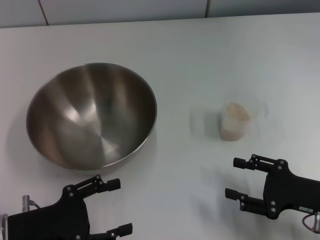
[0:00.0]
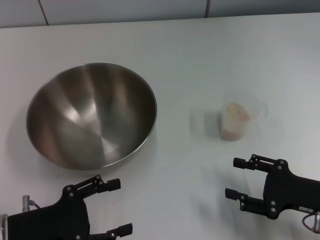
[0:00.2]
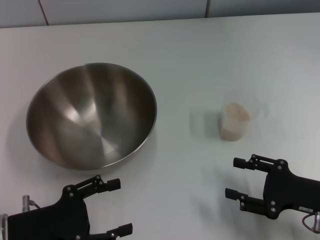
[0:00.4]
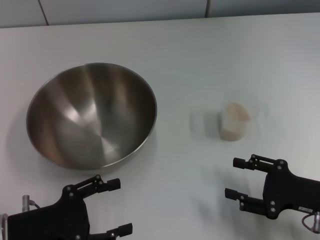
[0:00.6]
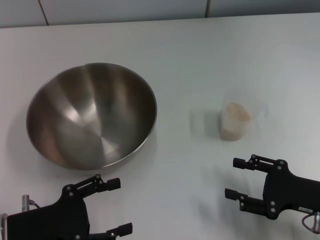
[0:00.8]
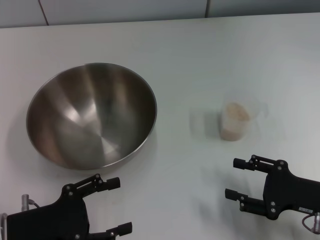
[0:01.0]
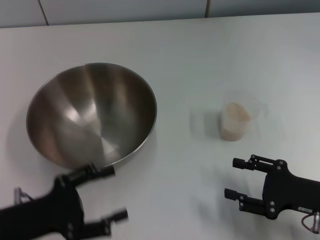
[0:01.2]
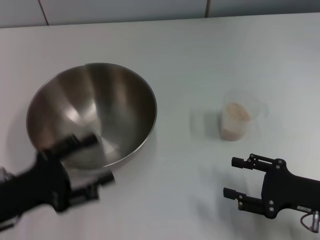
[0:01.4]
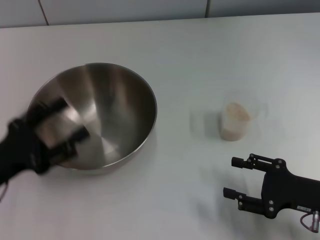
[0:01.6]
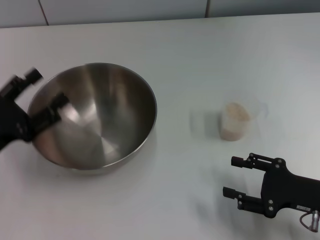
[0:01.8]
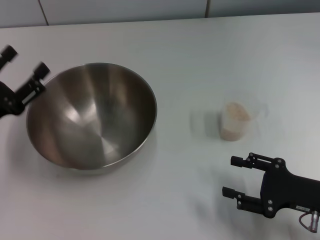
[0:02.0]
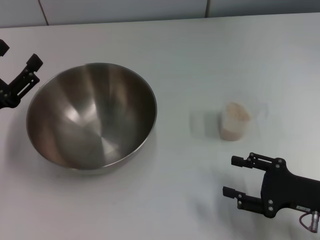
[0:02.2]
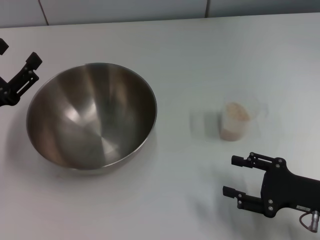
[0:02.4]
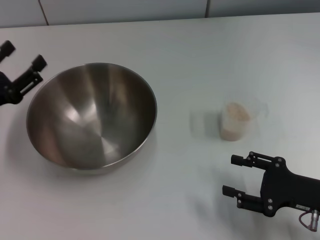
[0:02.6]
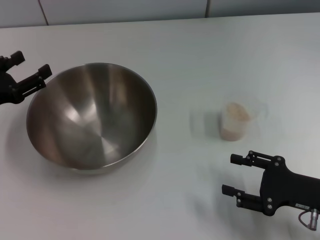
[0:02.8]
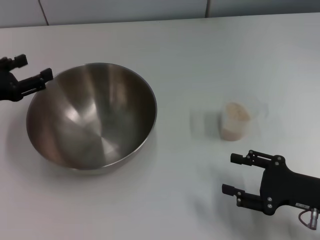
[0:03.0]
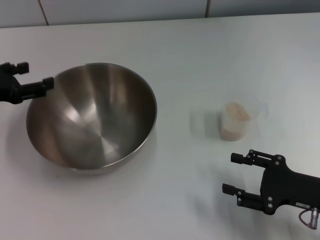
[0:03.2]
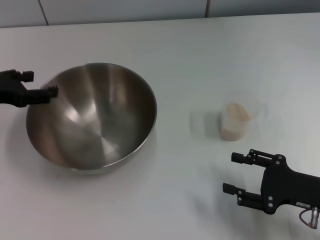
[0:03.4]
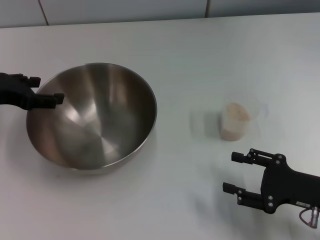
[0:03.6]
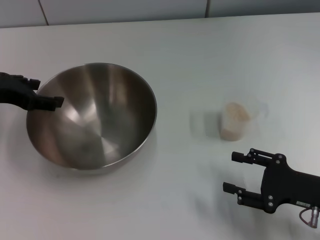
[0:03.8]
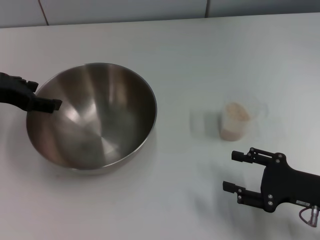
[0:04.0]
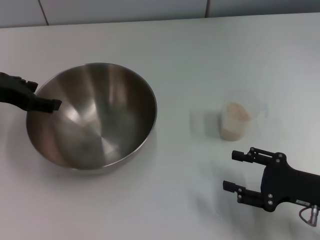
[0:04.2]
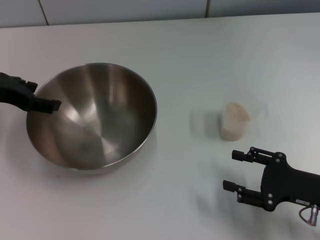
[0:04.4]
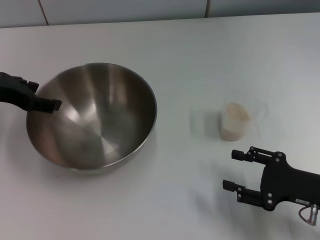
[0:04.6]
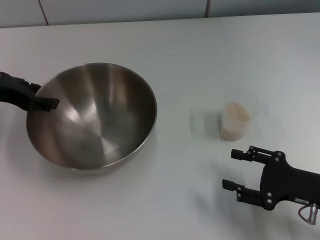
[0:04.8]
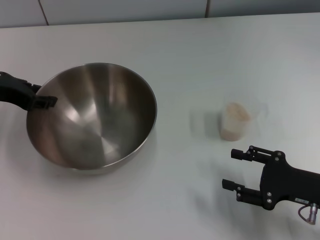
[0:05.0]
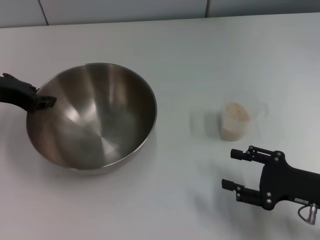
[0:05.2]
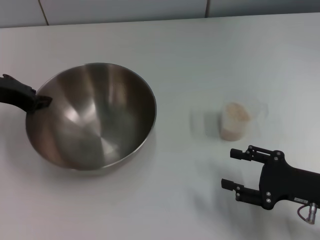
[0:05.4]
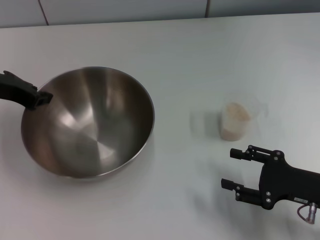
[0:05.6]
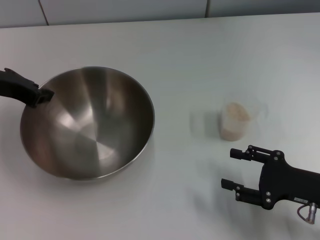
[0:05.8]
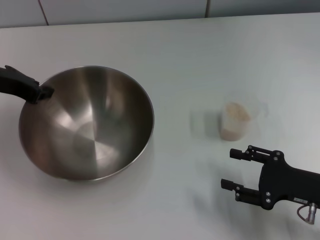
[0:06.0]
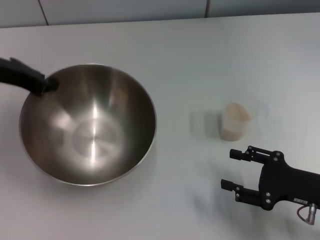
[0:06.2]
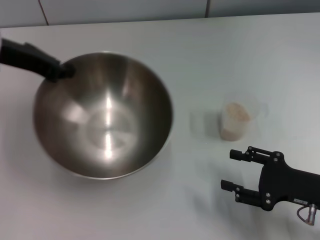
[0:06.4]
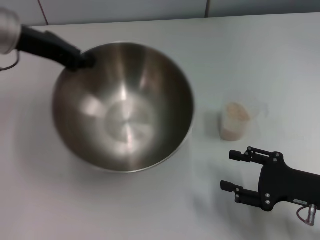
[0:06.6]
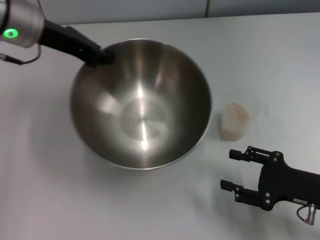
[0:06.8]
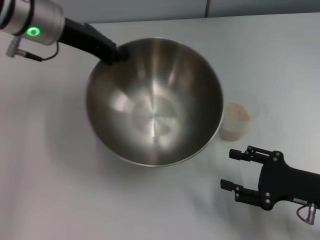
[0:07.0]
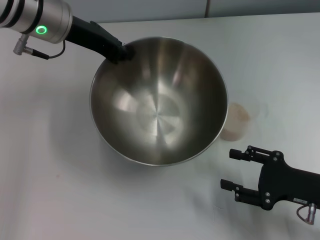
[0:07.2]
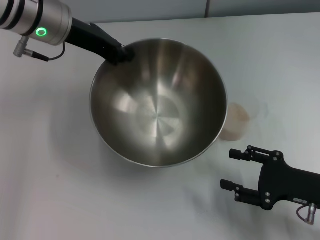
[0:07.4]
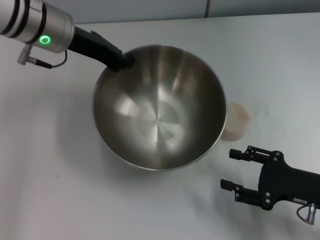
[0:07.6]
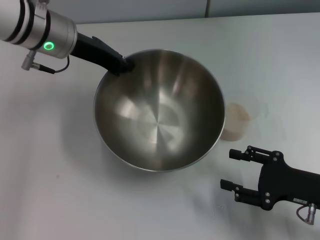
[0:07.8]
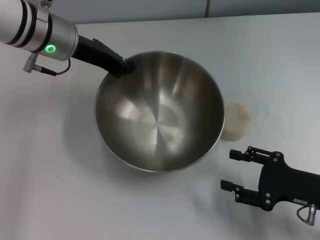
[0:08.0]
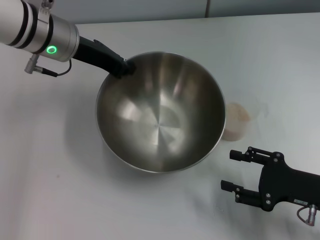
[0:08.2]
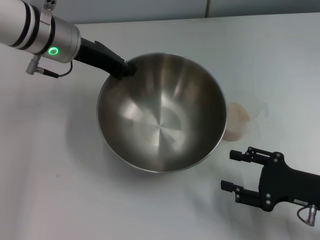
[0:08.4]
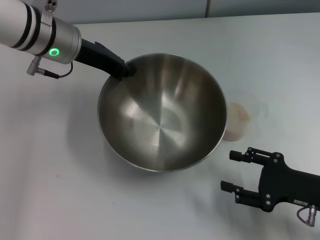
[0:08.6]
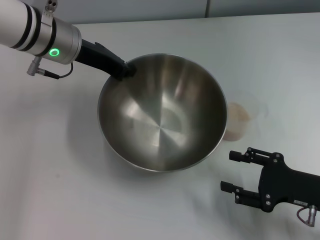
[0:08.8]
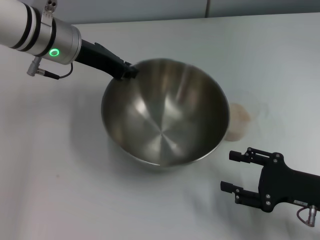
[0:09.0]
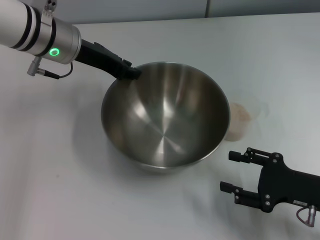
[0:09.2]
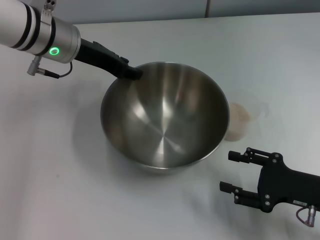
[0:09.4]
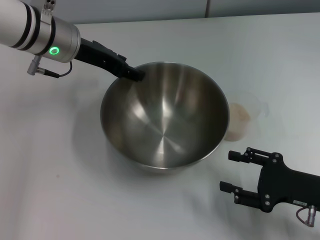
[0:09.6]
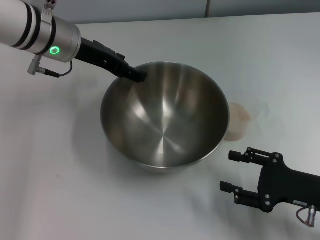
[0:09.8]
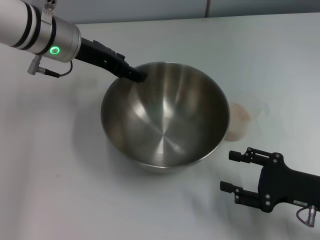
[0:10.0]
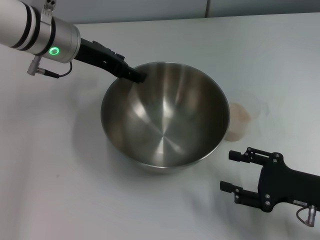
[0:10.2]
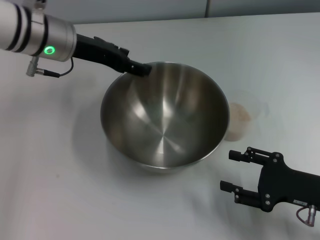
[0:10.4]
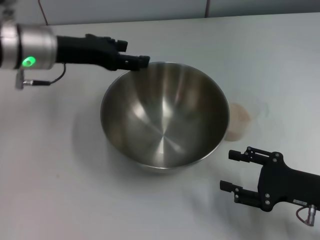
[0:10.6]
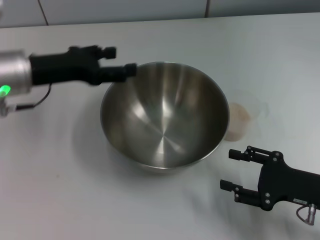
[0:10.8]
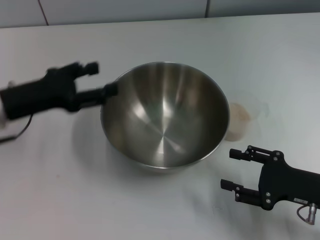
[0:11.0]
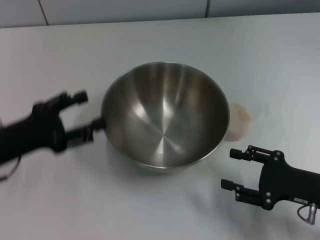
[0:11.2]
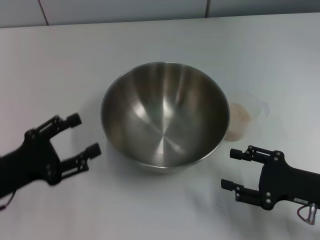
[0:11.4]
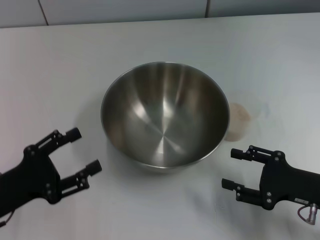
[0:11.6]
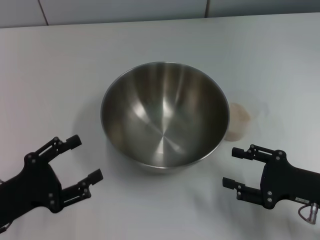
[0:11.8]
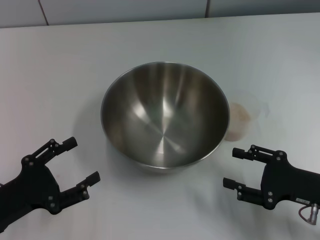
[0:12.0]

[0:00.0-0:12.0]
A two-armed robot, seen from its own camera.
Task of the whole recording: Place the bowl in the middle of the table with one hand and pour the rice from the grain cup into it with the other hand.
Step, 0:00.0 to 0:06.0: Pick up the bowl with the left gripper.
Step, 0:06.4 to 0:10.4: Place the bowl in the center of view with the left gripper.
0:00.0 to 0:01.6: The left gripper moves approximately 5 cm.
0:01.6 to 0:03.0: The left gripper moves forward, some 10 cm.
0:03.0 to 0:04.4: The left gripper shifts approximately 5 cm upward.
0:04.4 to 0:06.0: The left gripper closes.
0:06.0 to 0:07.6: The left gripper is displaced to the right by about 10 cm.
0:07.6 to 0:09.0: There are only small adjustments of the grippers.
0:09.0 to 0:10.4: The left gripper opens.
0:10.4 to 0:12.0: The left gripper goes some 30 cm backward, downward and to the left.

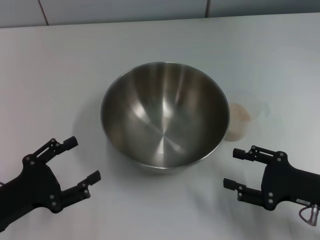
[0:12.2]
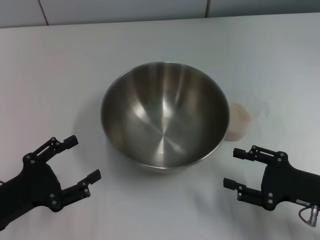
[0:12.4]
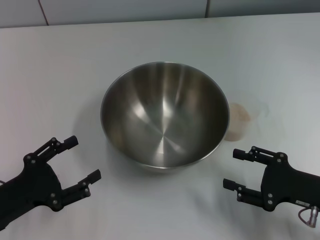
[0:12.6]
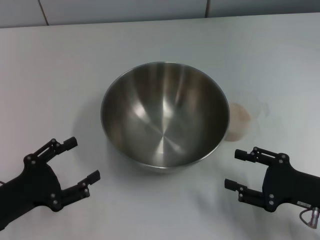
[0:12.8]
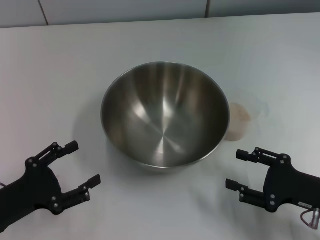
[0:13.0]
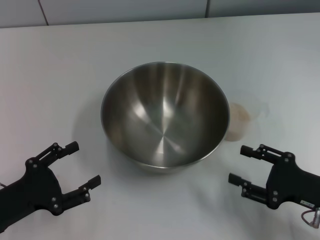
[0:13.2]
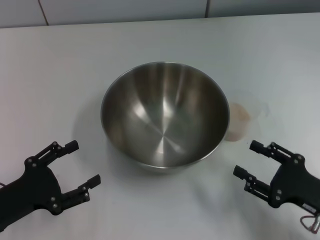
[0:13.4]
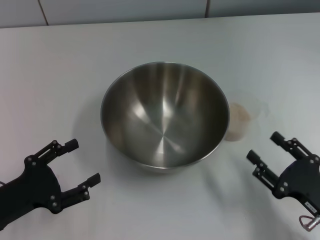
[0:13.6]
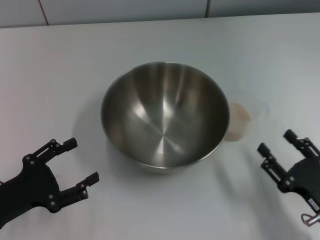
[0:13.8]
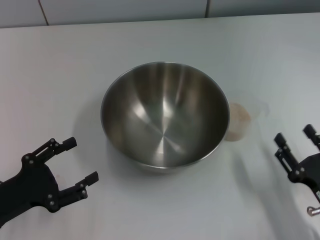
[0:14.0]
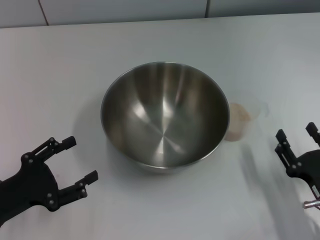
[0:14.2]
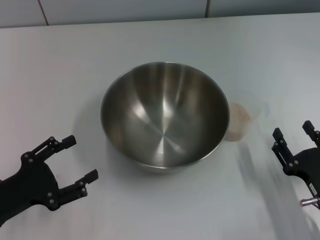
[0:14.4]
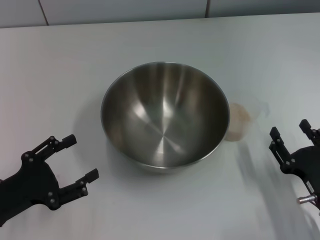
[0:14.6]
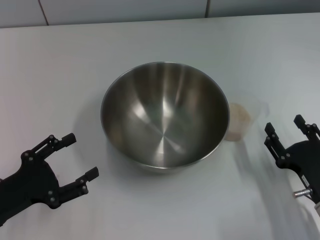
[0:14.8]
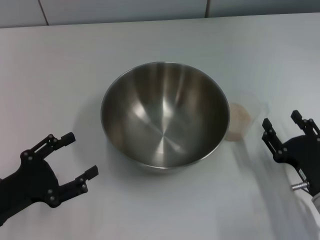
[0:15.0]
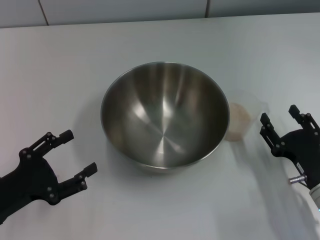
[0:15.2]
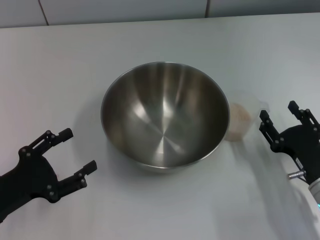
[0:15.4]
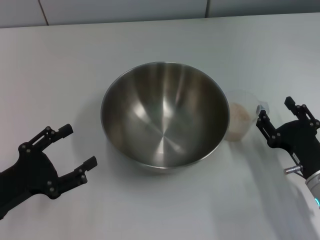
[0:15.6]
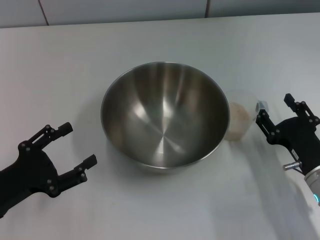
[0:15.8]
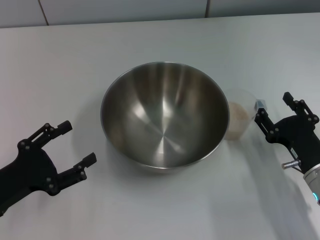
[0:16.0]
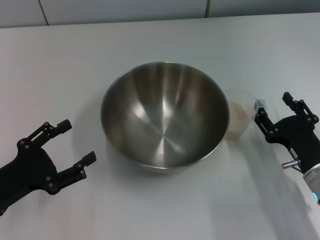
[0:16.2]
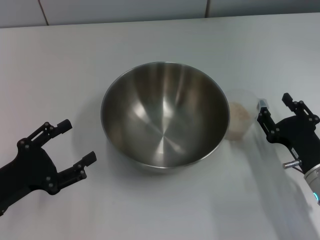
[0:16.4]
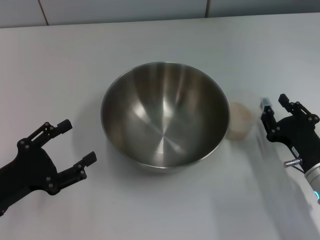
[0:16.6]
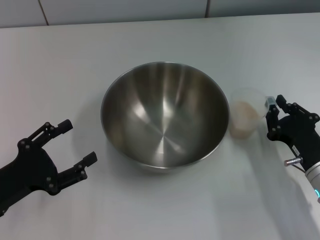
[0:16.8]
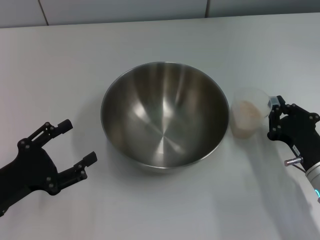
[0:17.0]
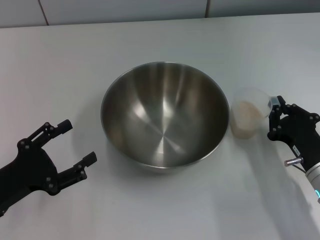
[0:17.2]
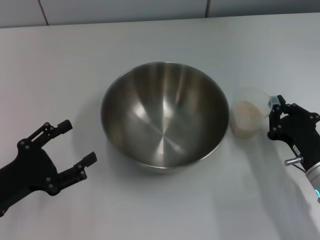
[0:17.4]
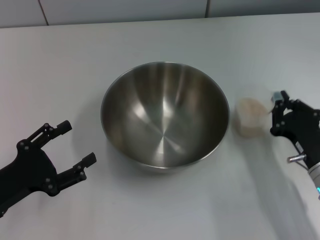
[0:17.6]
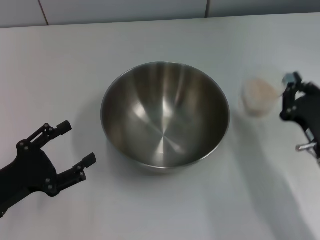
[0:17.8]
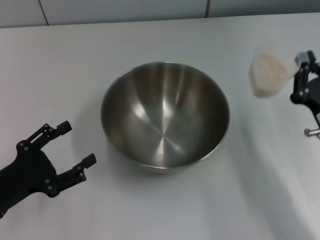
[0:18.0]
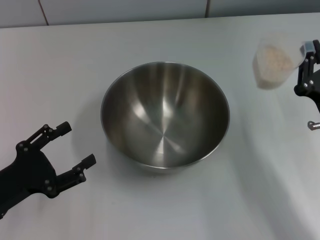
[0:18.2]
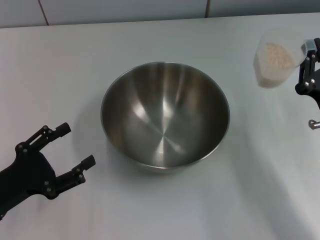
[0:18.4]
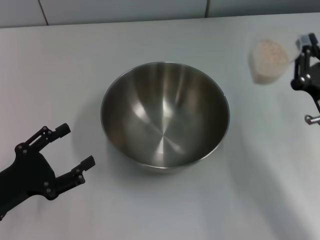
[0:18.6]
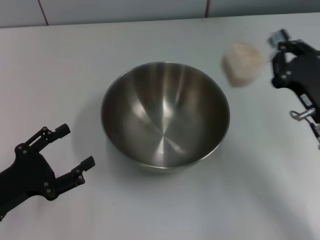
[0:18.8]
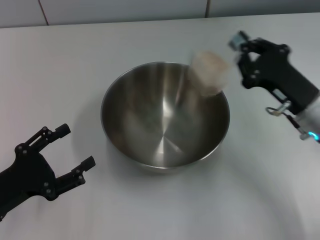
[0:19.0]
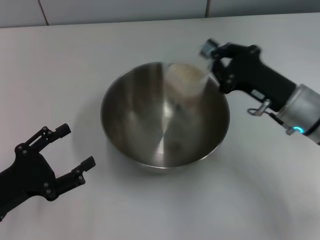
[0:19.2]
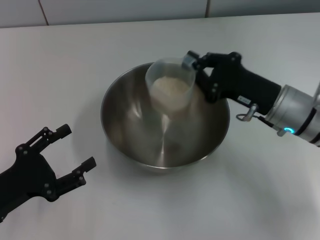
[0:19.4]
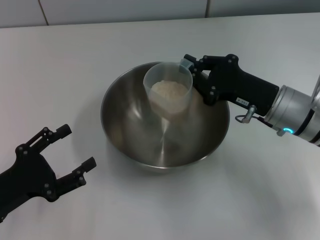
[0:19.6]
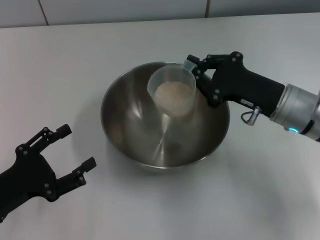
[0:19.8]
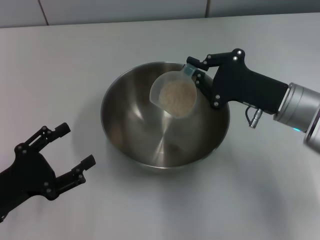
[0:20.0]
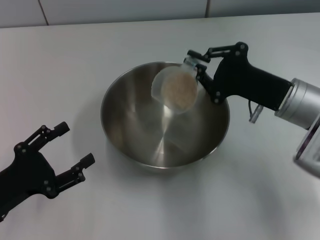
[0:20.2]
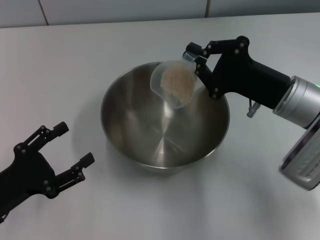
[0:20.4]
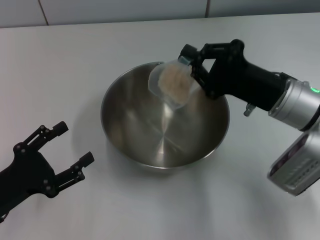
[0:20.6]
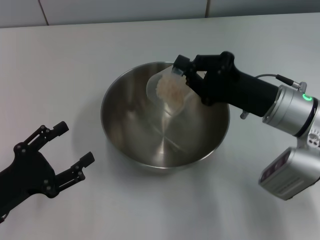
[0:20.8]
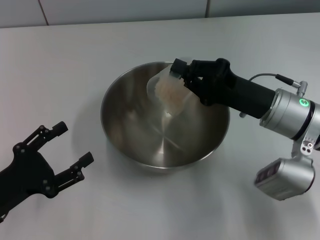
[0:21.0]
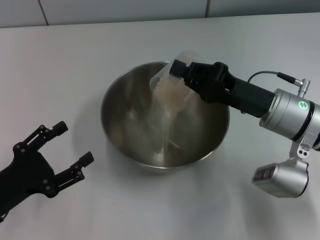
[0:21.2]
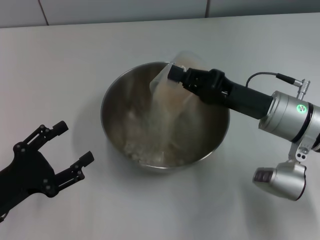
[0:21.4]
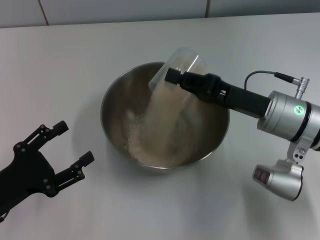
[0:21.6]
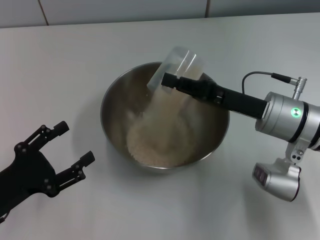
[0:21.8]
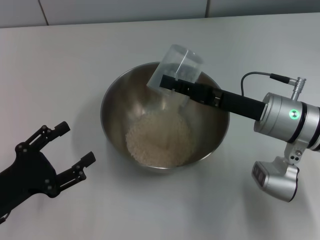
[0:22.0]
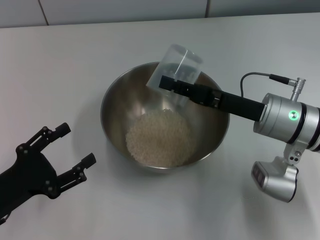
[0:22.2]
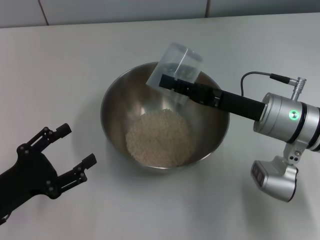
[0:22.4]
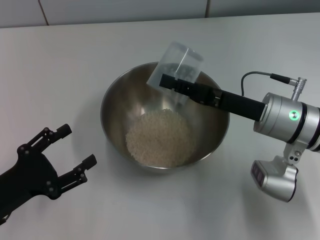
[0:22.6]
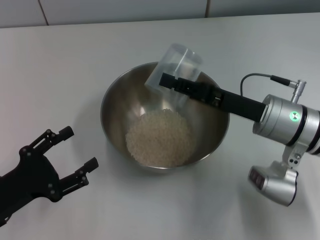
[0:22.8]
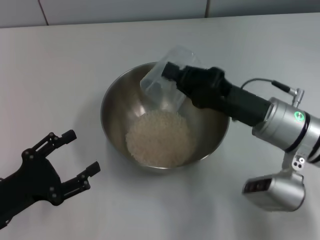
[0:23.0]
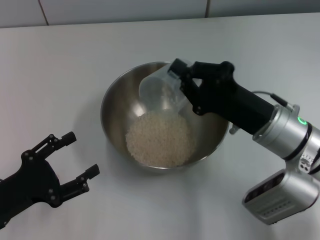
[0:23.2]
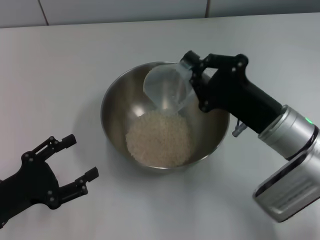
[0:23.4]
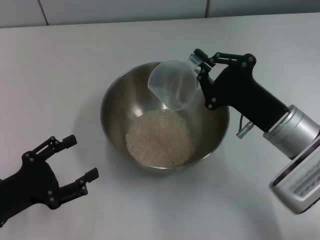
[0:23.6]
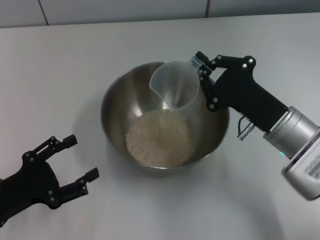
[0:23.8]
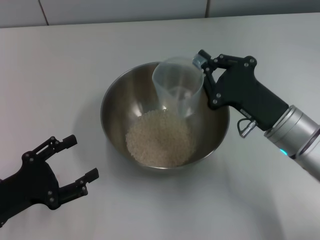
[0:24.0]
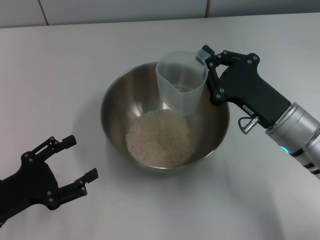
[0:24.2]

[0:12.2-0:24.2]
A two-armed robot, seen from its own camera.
Task of the whole recording: Place the bowl in the middle of the table with one hand and pour the rice from the grain cup into it with the other hand.
Step, 0:12.2 to 0:17.8: Pick up the cup with rice in it with the right gripper.
Step, 0:18.2 to 0:23.8: Pour the rice from the cup into the bowl with the right gripper.
0:12.2 to 0:13.8: The right gripper moves backward, some 5 cm.
0:13.8 to 0:15.2: The right gripper heads forward, covering roughly 5 cm.
0:15.2 to 0:16.6: The grippers move only a little.
0:16.6 to 0:18.2: The right gripper shifts by approximately 5 cm, and closes up.
0:18.2 to 0:19.8: The right gripper moves forward, some 10 cm.
